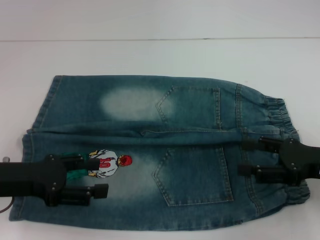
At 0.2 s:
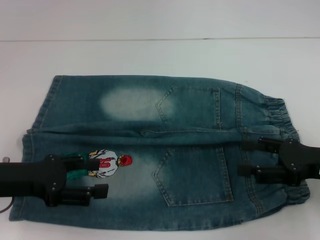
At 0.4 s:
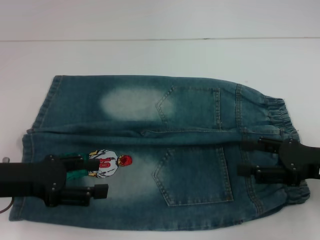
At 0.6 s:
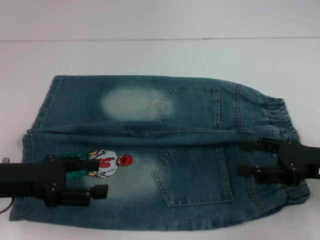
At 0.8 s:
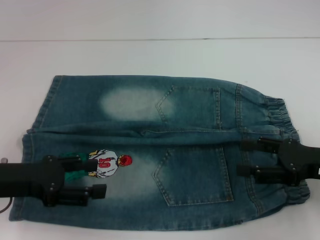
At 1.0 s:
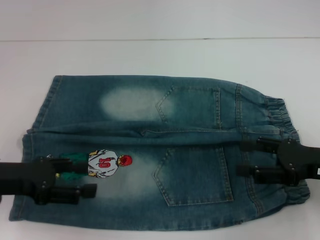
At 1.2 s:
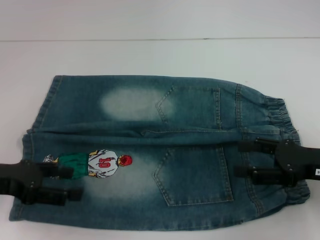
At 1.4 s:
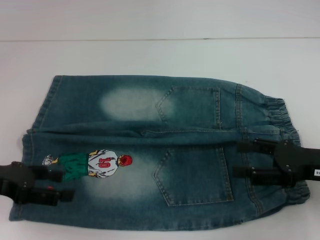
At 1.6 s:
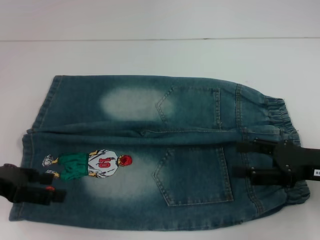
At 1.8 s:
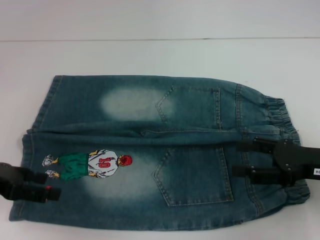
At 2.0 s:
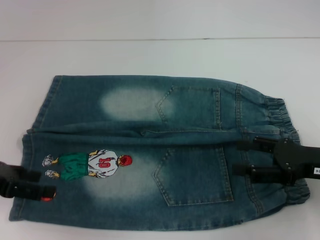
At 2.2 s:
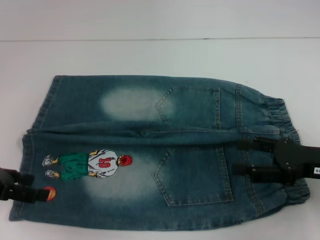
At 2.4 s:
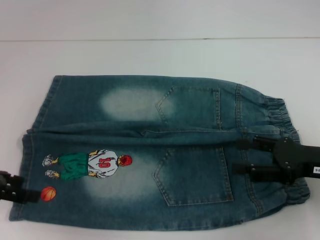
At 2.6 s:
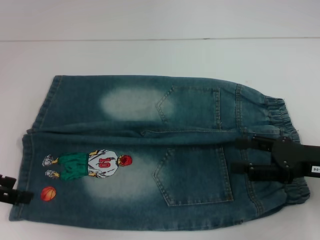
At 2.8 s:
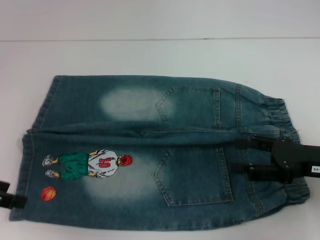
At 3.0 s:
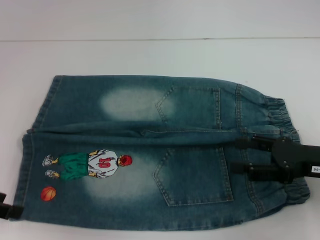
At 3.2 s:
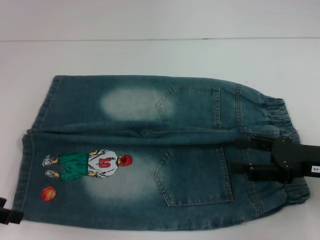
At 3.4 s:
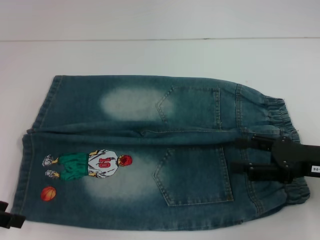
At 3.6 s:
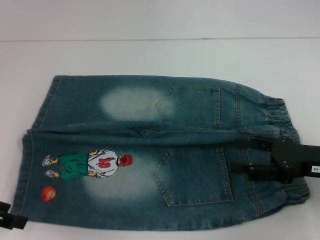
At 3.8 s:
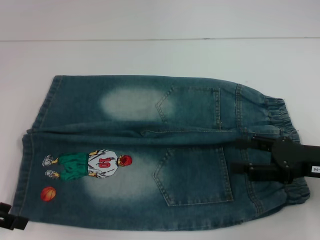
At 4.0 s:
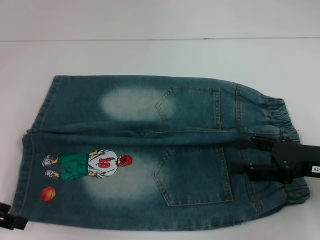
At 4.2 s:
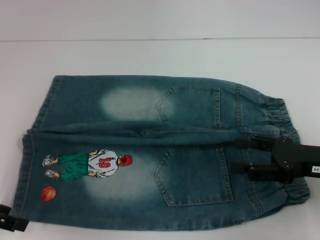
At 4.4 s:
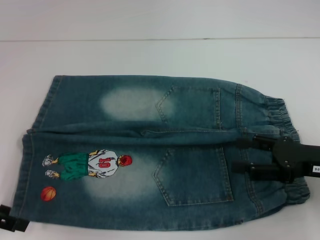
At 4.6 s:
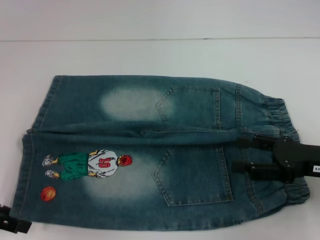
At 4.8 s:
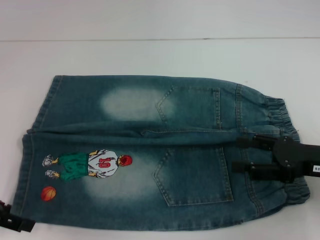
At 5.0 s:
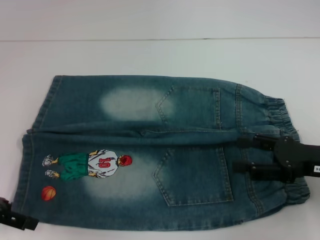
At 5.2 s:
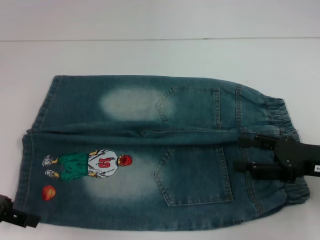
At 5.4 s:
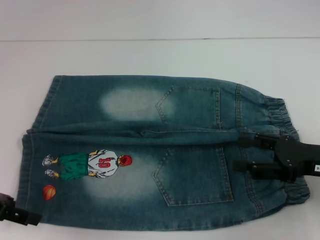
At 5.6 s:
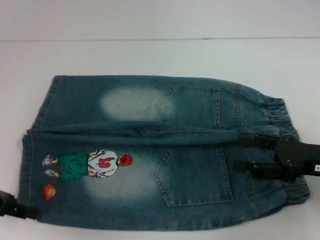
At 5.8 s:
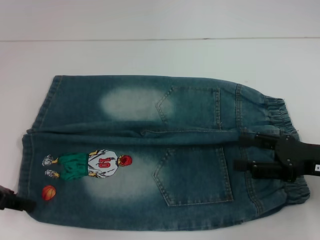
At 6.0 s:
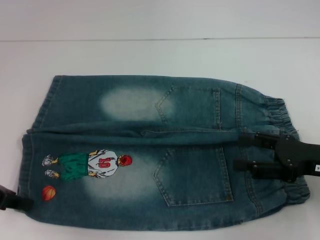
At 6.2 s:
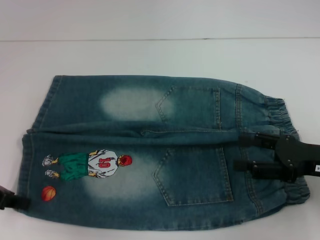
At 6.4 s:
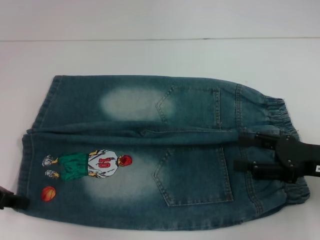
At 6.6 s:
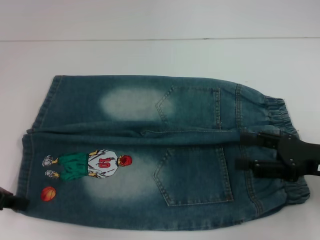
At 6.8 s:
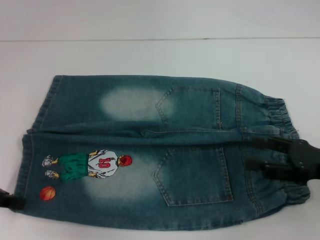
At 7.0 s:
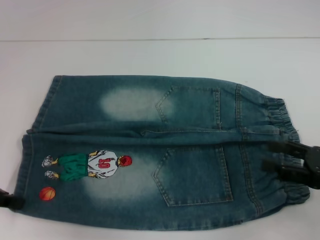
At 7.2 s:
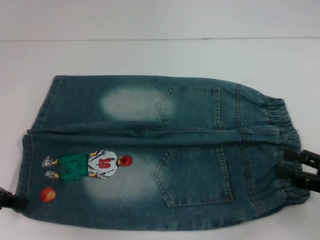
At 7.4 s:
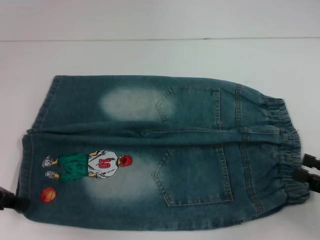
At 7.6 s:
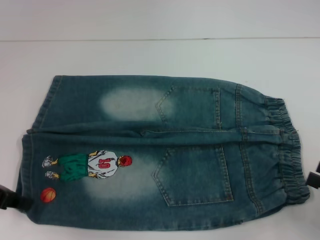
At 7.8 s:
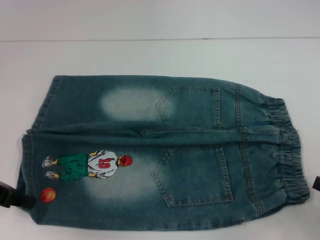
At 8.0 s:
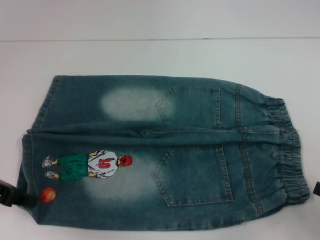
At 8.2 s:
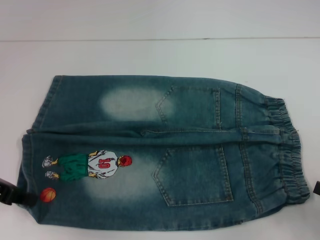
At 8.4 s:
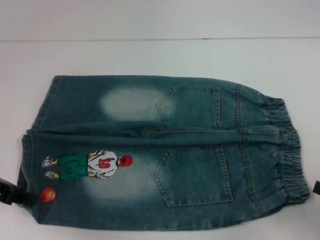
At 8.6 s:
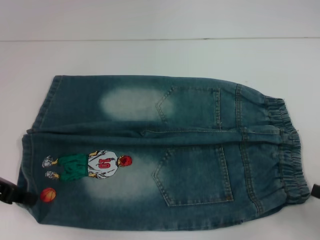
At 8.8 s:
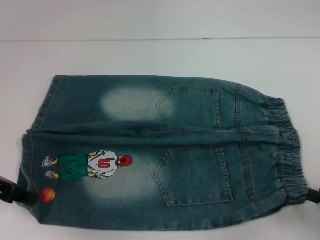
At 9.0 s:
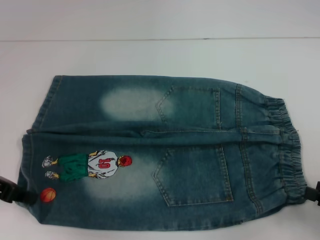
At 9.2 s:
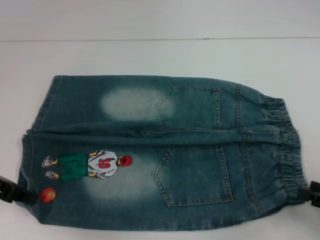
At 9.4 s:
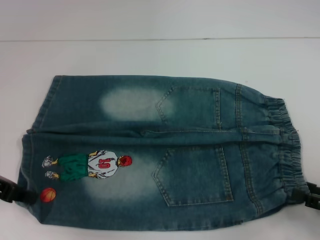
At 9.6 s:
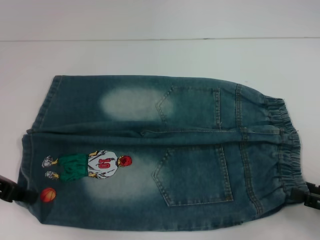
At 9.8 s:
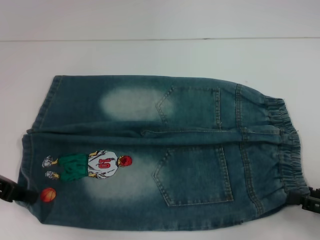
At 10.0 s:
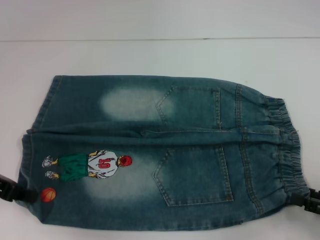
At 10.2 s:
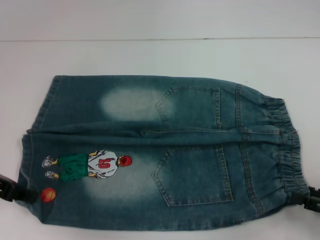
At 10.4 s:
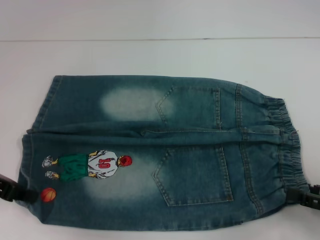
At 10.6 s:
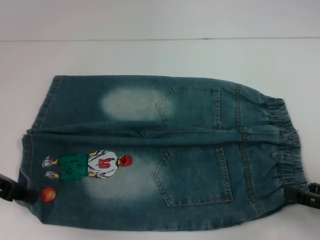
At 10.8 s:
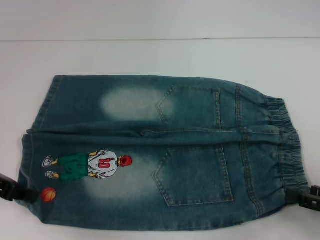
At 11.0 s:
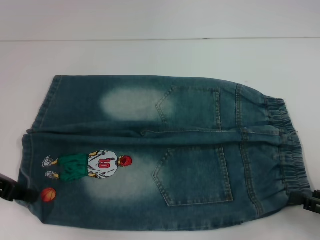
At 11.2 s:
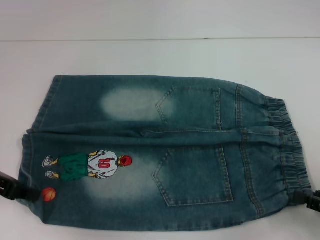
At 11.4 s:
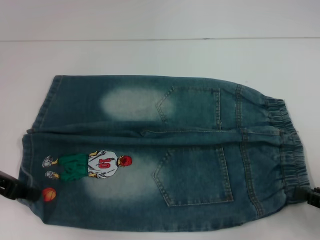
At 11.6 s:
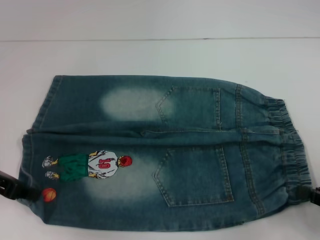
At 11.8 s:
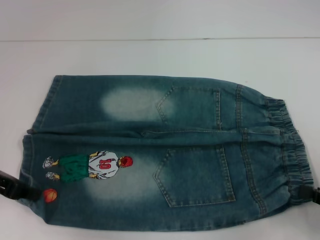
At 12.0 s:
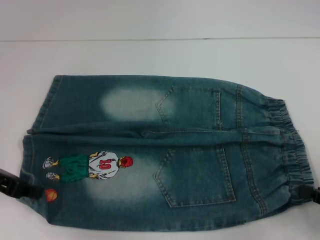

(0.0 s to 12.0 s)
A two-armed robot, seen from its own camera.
Step, 0.0 s - 6.6 s: Grab the lower left pant leg with your left hand.
1.6 s - 3.0 s: The grippers make only small movements.
4.4 s - 6.0 s: The left gripper closes up.
6.0 s - 7.6 s: The right gripper moves backward and to the right, roughly 10 cm.
7.6 s - 9.0 s: There are only small adjustments of the grippers.
10.4 s - 12.0 s: The right gripper closes.

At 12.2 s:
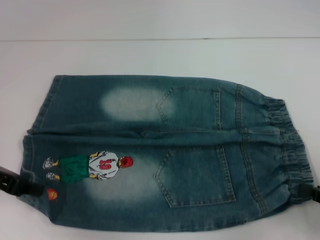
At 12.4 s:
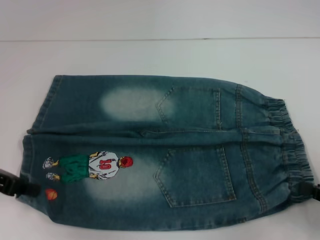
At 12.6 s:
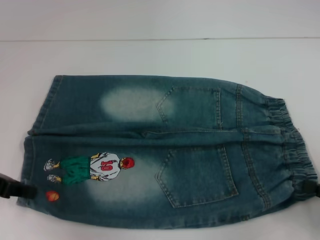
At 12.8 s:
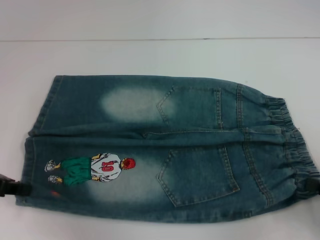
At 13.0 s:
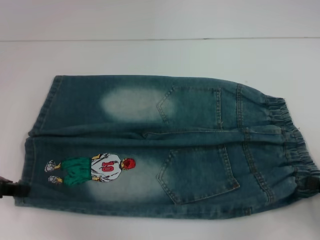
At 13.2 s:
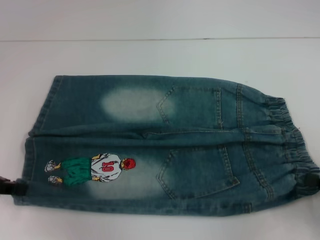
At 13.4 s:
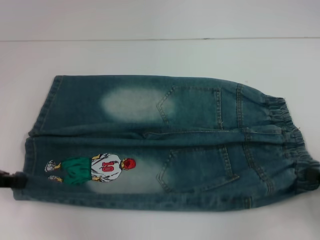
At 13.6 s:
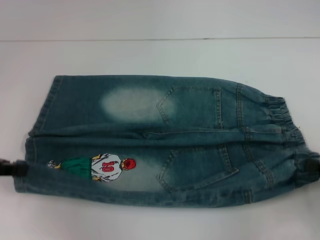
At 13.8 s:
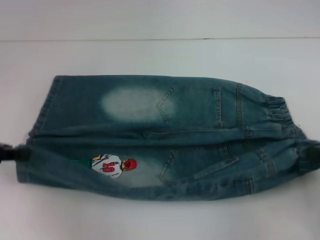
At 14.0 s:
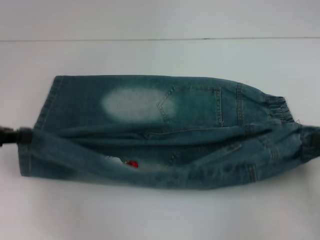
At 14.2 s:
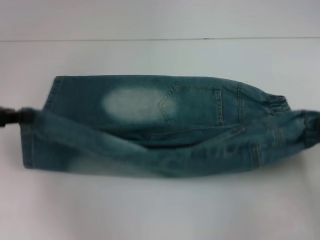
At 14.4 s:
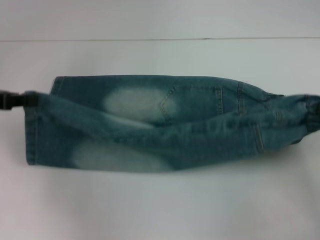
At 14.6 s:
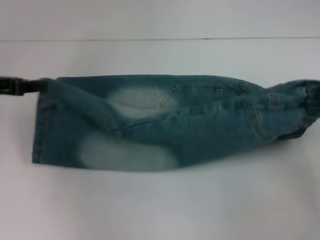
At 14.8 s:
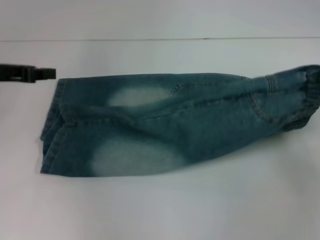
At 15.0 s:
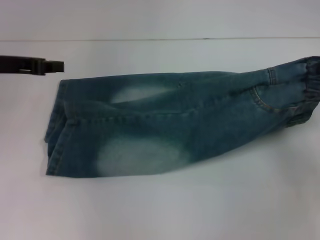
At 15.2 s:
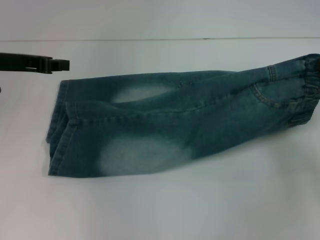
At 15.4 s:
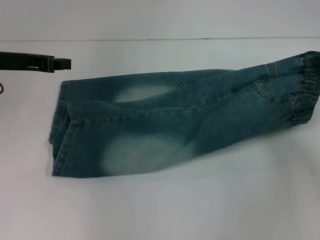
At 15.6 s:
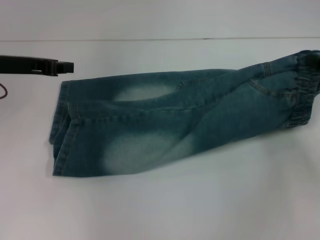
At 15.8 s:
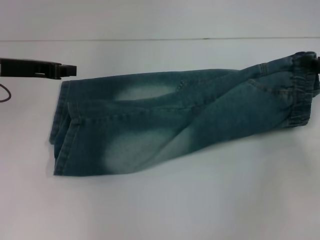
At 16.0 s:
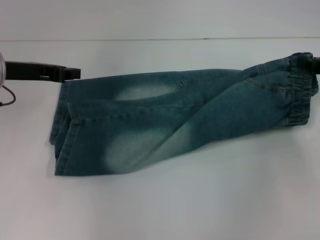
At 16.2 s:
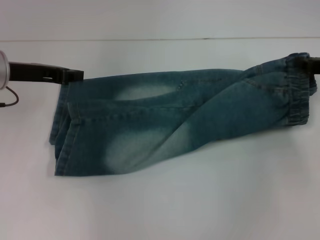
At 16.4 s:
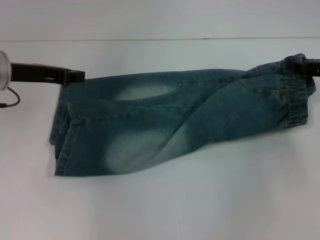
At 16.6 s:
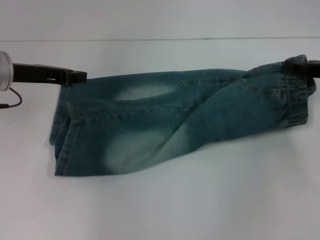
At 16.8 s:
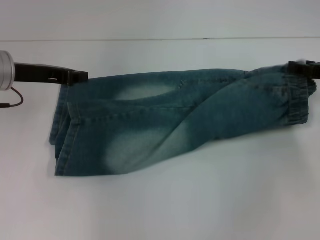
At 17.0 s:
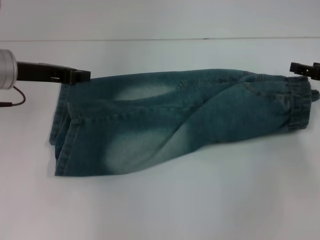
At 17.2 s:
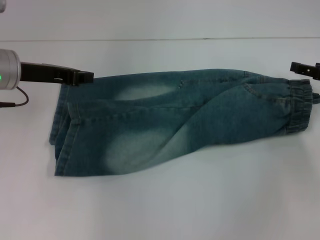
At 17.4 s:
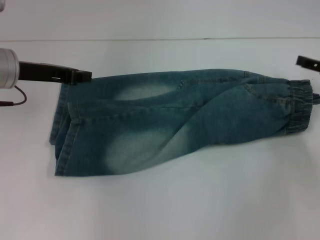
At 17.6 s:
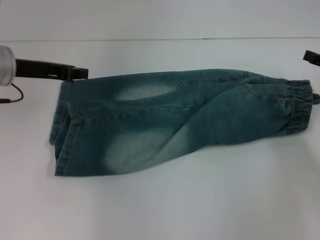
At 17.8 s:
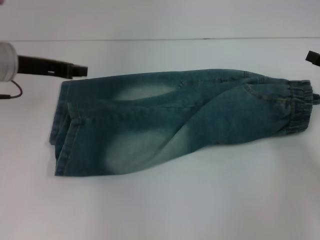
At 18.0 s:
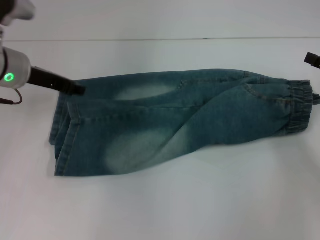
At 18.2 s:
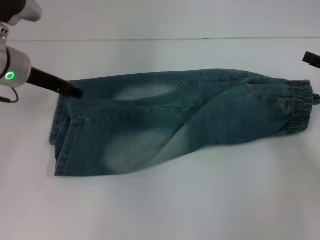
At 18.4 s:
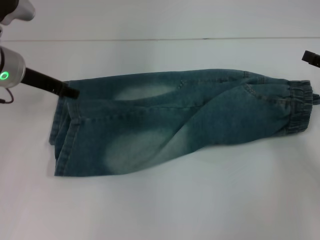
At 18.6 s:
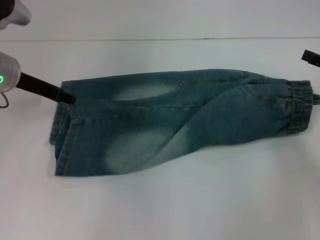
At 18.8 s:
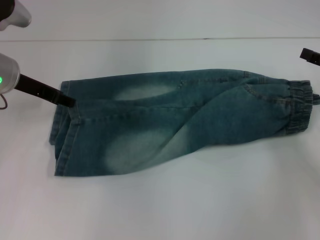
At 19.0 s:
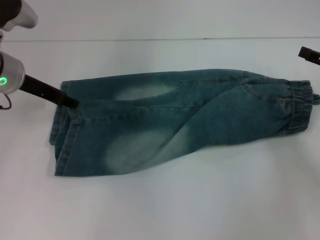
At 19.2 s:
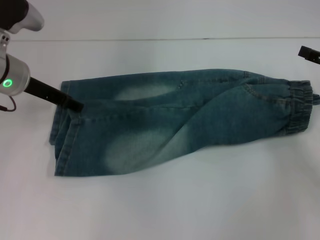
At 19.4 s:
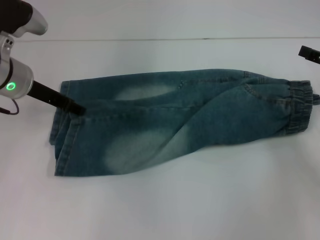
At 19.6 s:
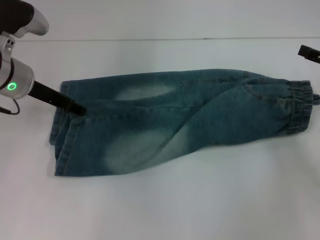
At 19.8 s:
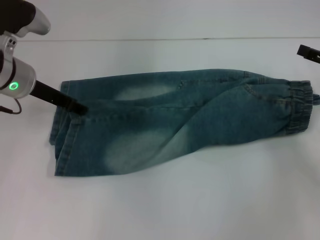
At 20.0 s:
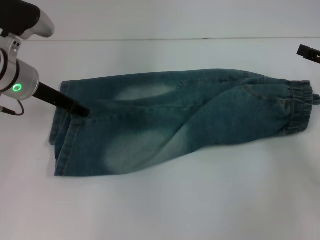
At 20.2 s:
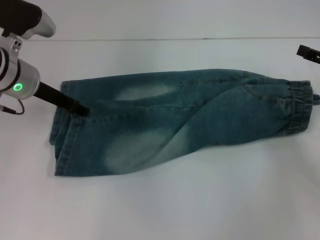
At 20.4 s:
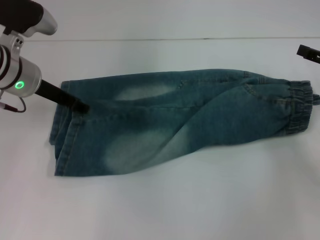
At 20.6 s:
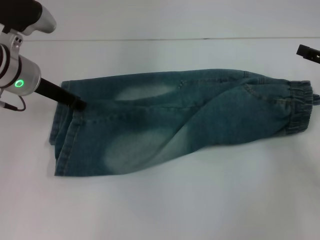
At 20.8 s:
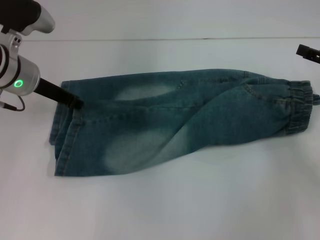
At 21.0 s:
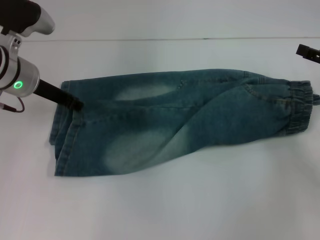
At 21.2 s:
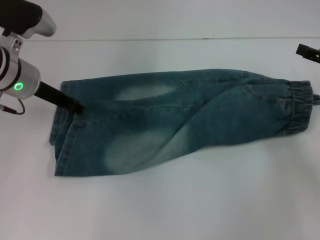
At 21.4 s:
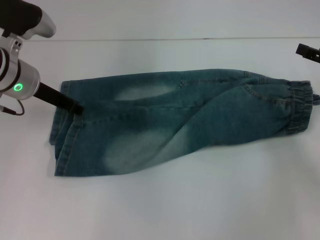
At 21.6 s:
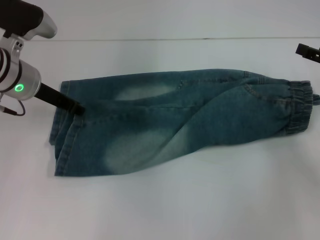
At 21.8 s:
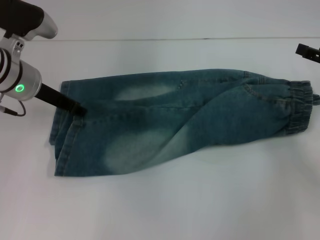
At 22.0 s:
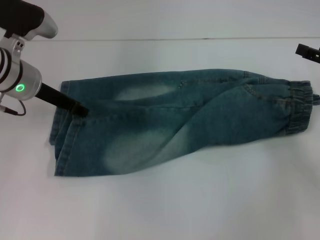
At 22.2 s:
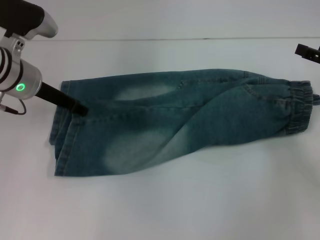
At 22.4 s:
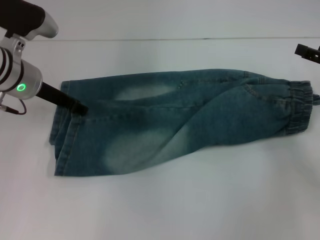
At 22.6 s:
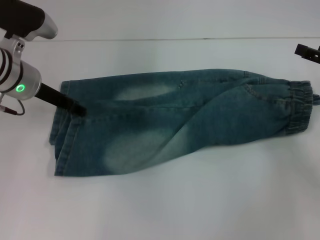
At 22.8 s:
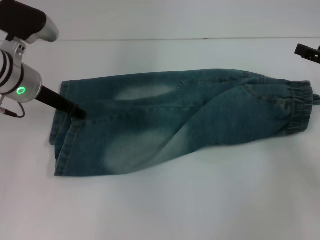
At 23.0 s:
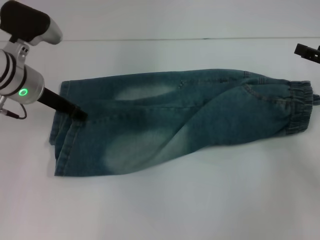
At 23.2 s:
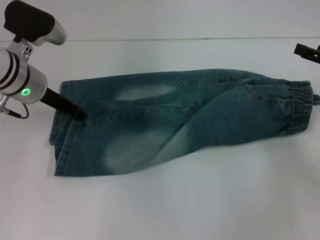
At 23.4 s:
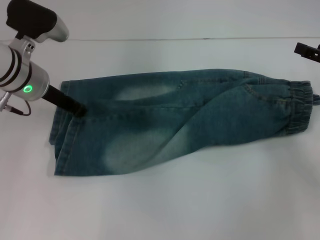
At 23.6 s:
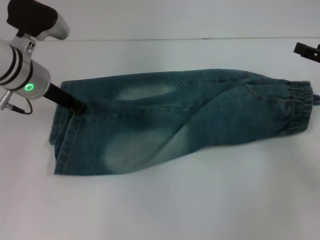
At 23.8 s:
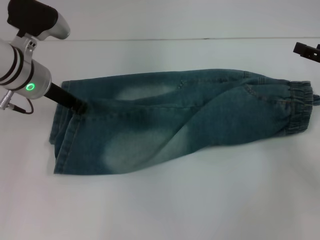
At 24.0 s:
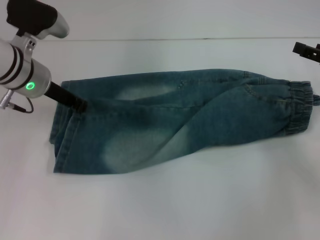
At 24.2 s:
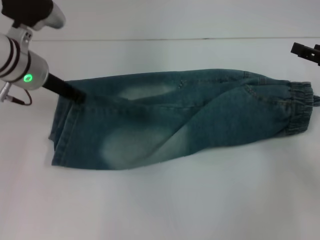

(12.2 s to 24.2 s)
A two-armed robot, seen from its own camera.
12.2 s - 13.8 s: The grippers stay close to where they were, moving slightly.
13.8 s - 15.2 s: The left gripper is displaced forward and to the right by approximately 10 cm, while the right gripper heads forward and upward, covering roughly 15 cm.
15.2 s - 16.6 s: The right gripper goes some 5 cm forward.
16.6 s - 18.2 s: The right gripper moves approximately 5 cm, and opens up, while the left gripper opens its fingers.
18.2 s - 19.8 s: There are only small adjustments of the grippers.
19.8 s - 21.2 s: The left gripper closes.
21.2 s - 22.6 s: Neither gripper changes place.
22.6 s - 24.2 s: The left gripper closes.
